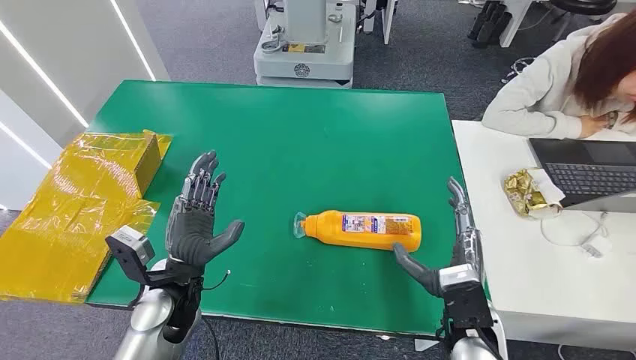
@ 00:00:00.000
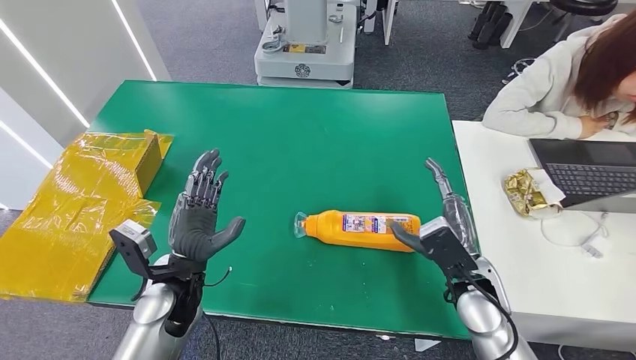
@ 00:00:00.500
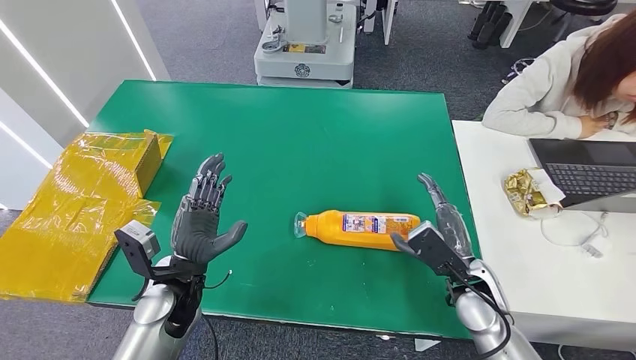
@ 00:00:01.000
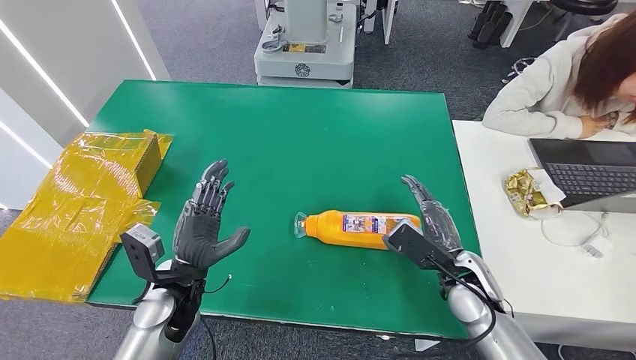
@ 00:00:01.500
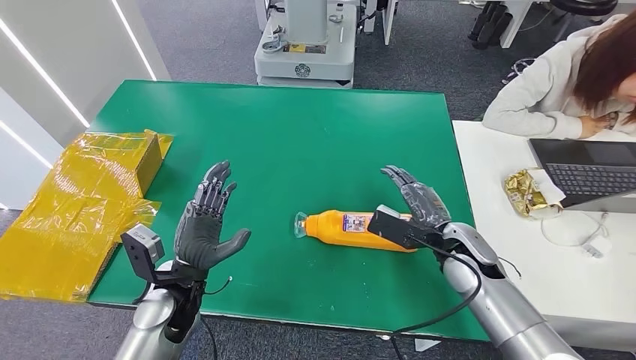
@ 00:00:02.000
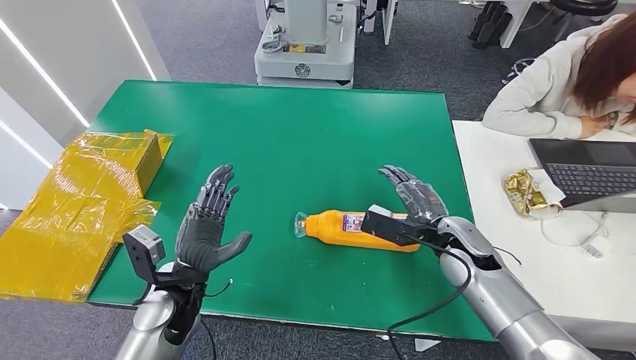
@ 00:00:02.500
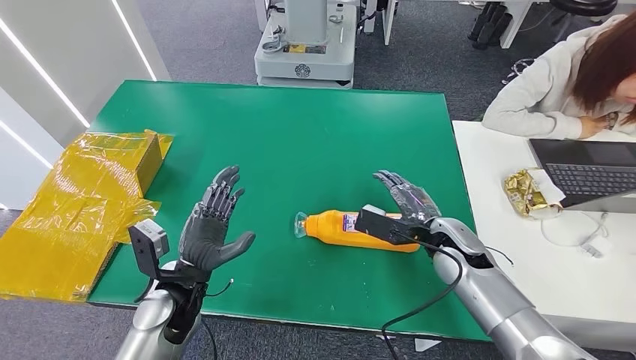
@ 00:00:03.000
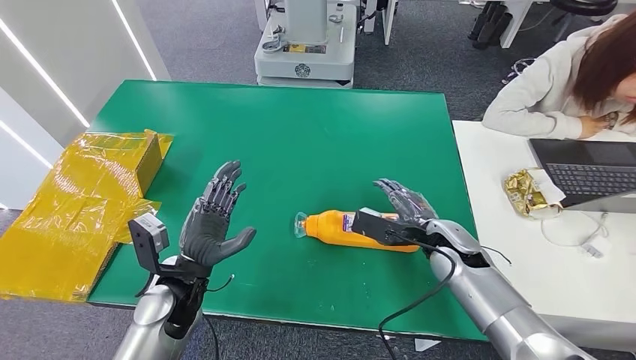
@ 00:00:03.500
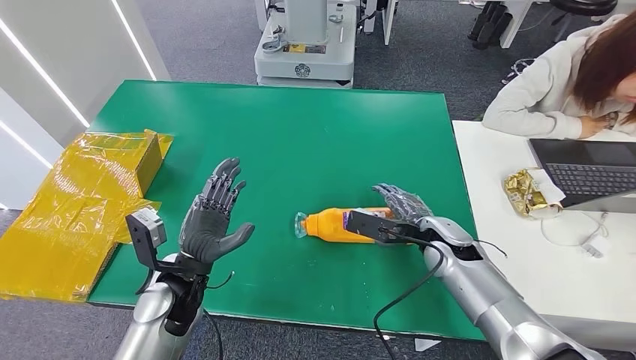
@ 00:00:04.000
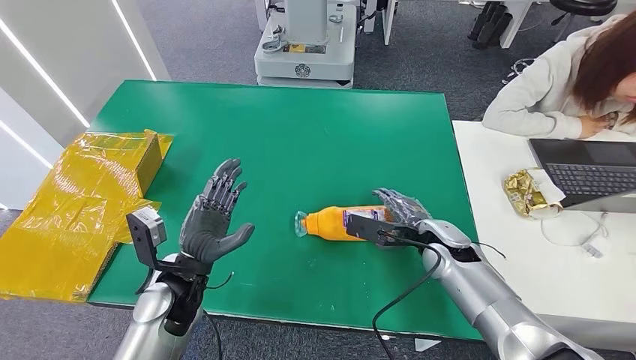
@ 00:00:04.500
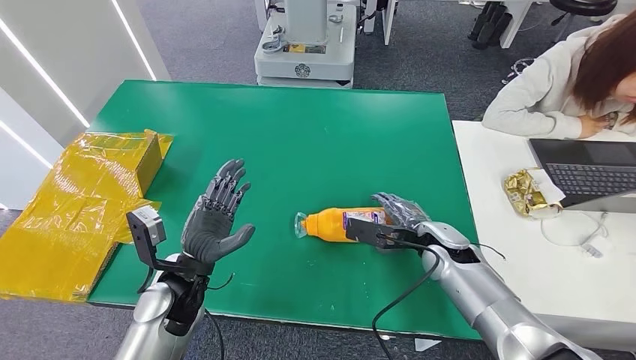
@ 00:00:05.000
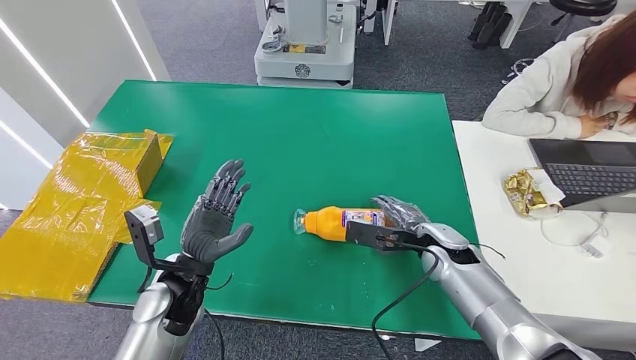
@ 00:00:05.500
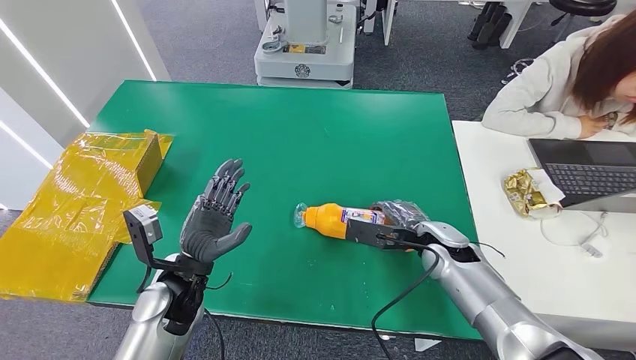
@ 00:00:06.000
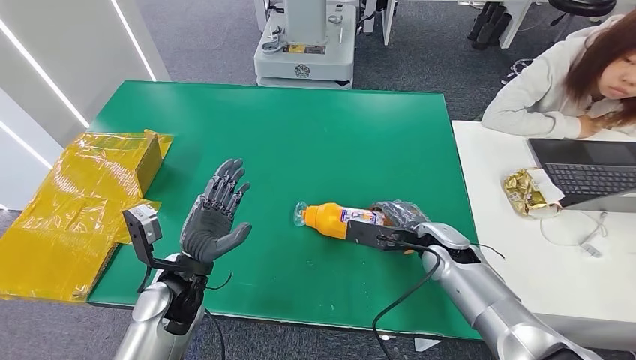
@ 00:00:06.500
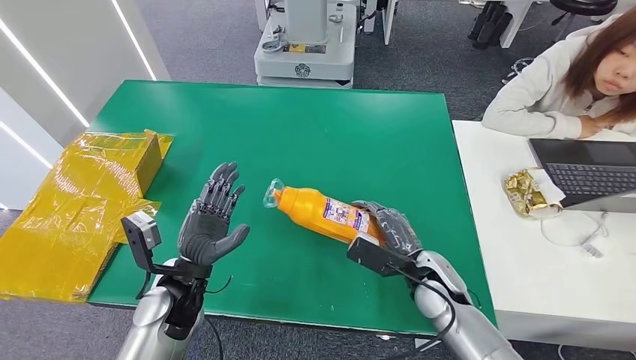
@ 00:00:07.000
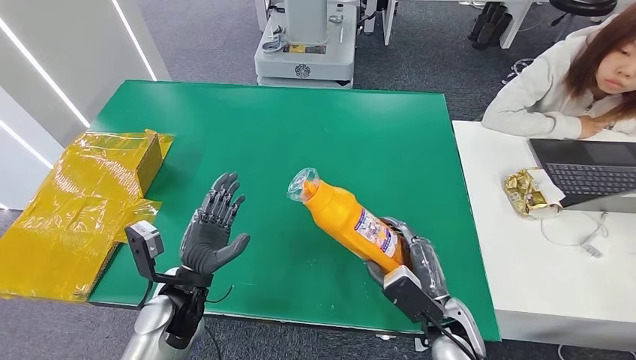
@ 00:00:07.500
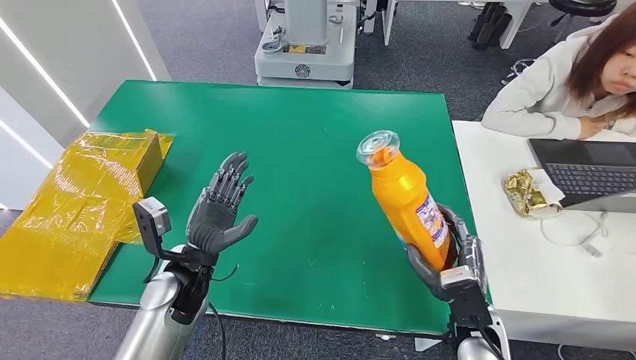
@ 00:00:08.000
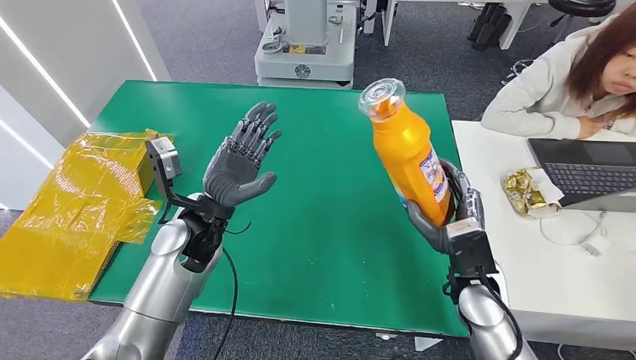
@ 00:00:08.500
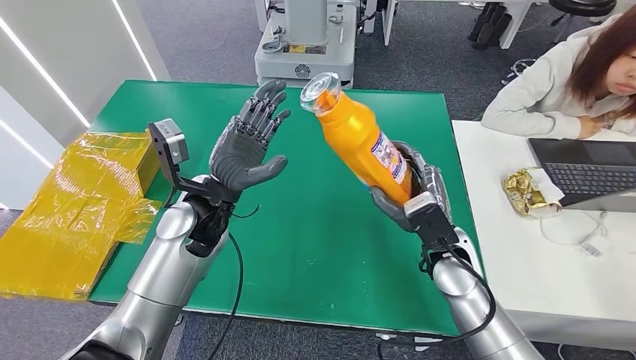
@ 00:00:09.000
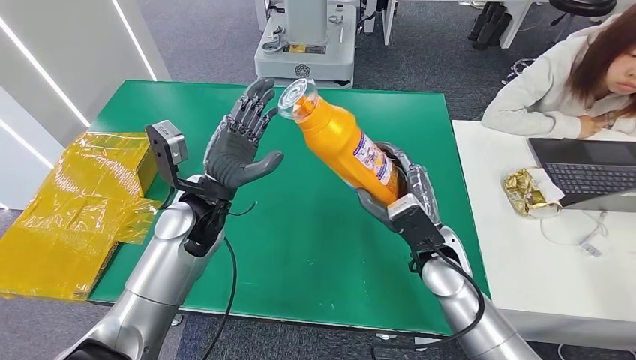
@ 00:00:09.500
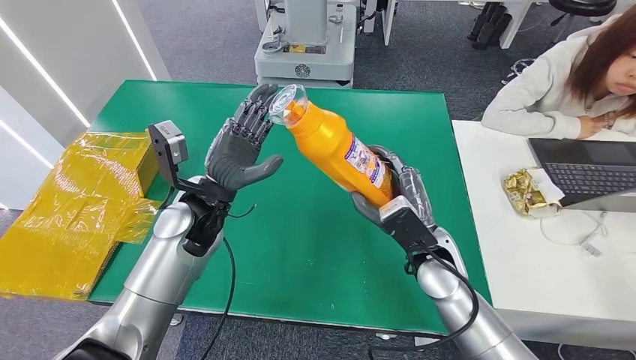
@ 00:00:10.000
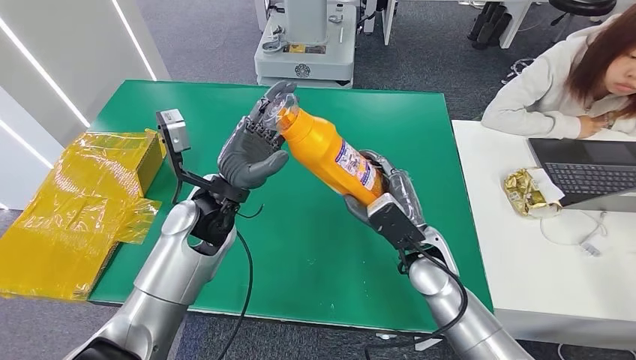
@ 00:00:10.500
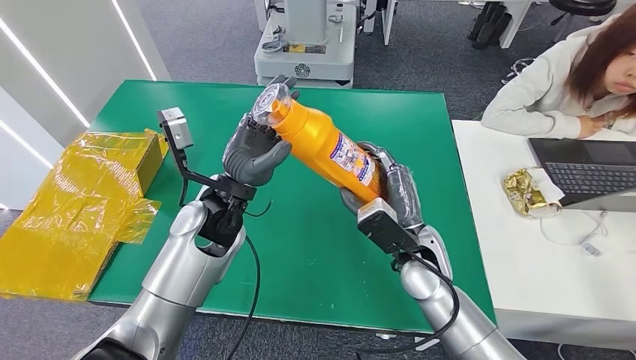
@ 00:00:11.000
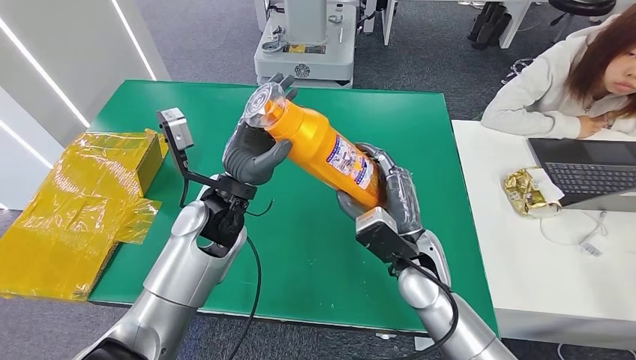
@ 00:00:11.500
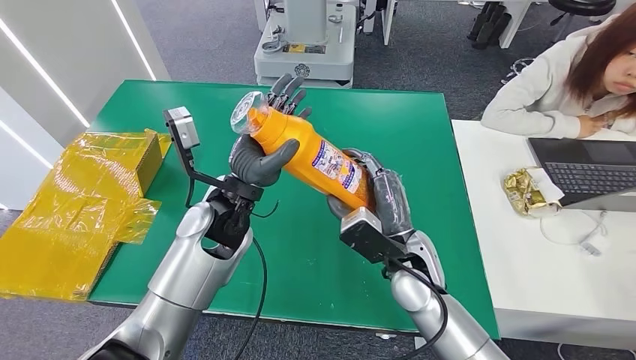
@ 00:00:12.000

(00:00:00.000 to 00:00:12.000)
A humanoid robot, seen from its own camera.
Step, 00:00:00.000 - 00:00:07.000: Pick up the bottle from the table.
00:00:04.000 - 00:00:06.000: There are only small adjustments of the hands.
00:00:06.000 - 00:00:08.000: The right hand heads backward, covering some 15 cm.
00:00:08.000 - 00:00:10.000: The left hand heads upward and forward, covering approximately 10 cm, while the right hand goes approximately 15 cm forward, to the left and upward.
00:00:10.000 - 00:00:12.000: The left hand moves about 5 cm.

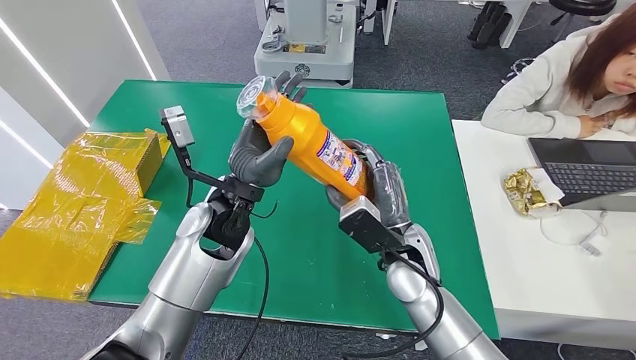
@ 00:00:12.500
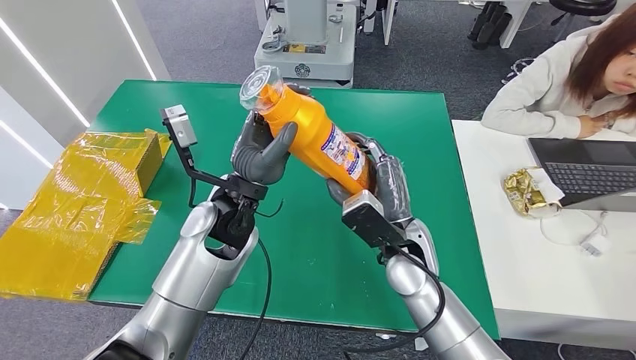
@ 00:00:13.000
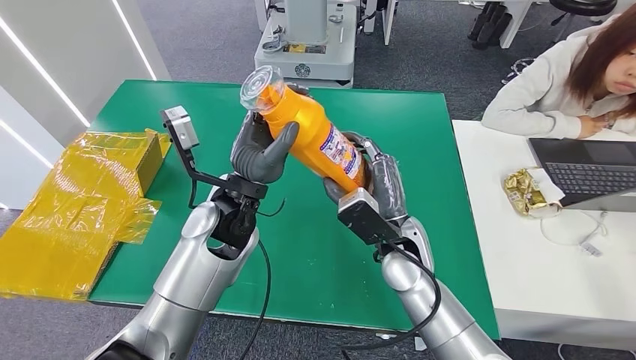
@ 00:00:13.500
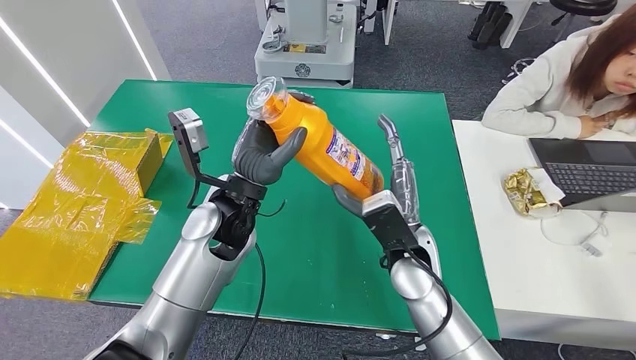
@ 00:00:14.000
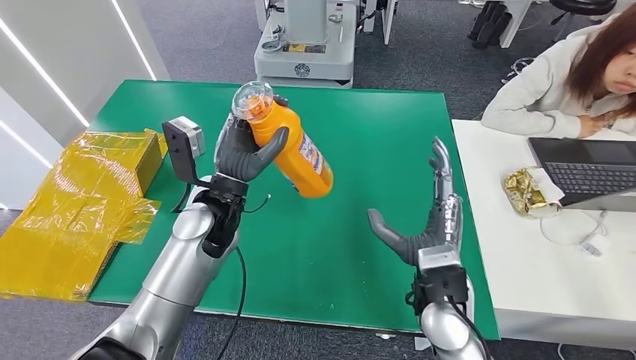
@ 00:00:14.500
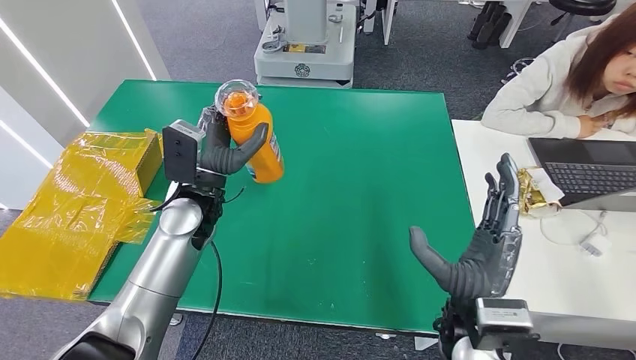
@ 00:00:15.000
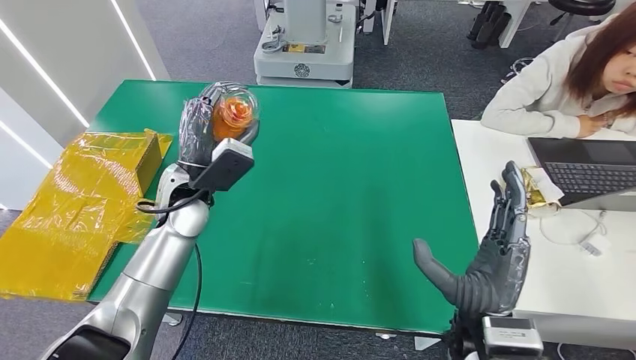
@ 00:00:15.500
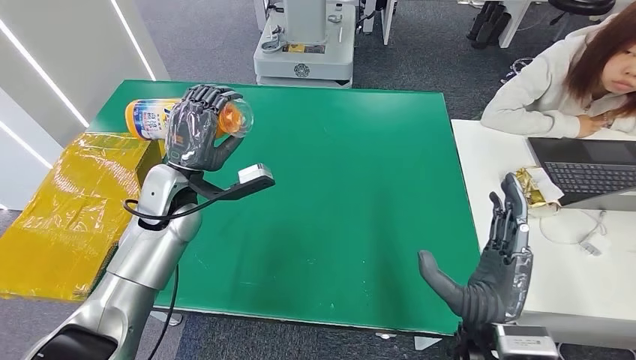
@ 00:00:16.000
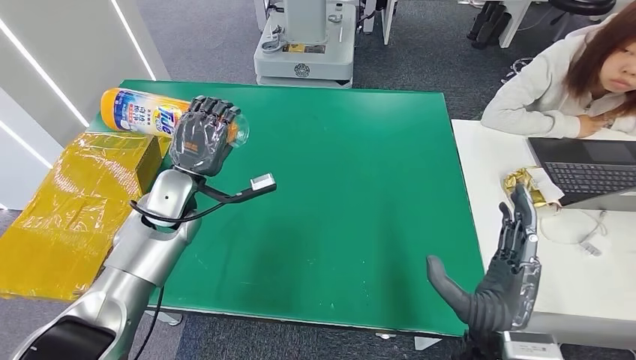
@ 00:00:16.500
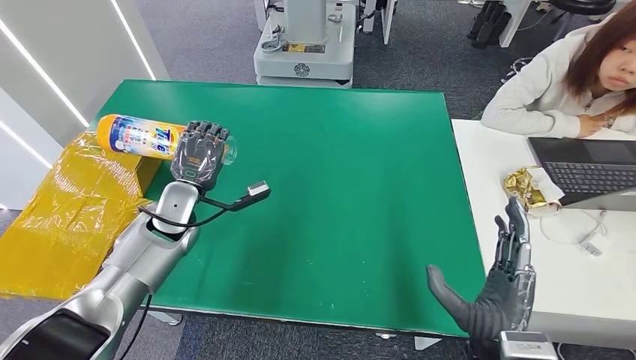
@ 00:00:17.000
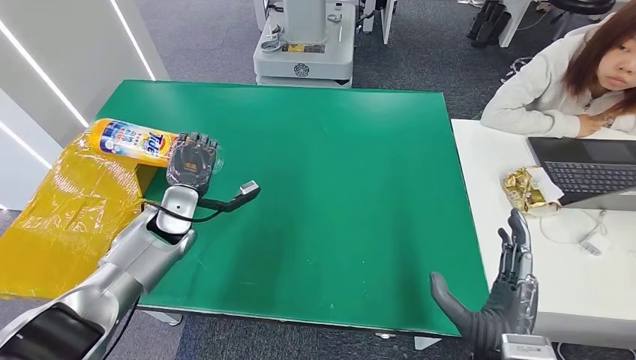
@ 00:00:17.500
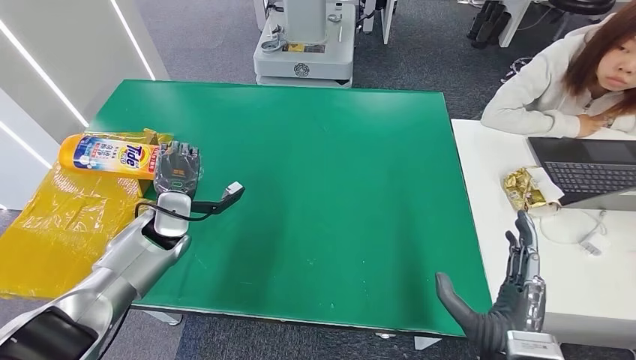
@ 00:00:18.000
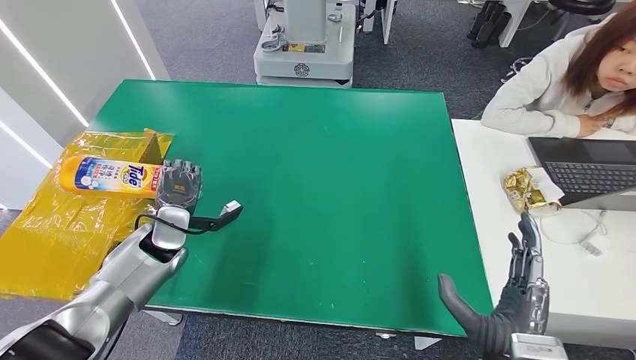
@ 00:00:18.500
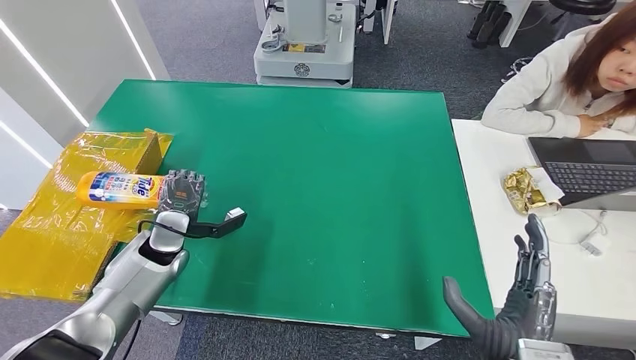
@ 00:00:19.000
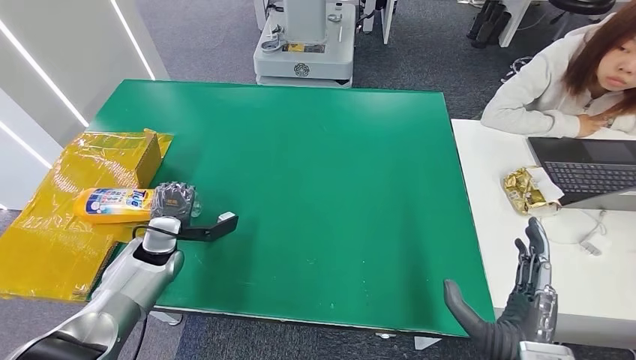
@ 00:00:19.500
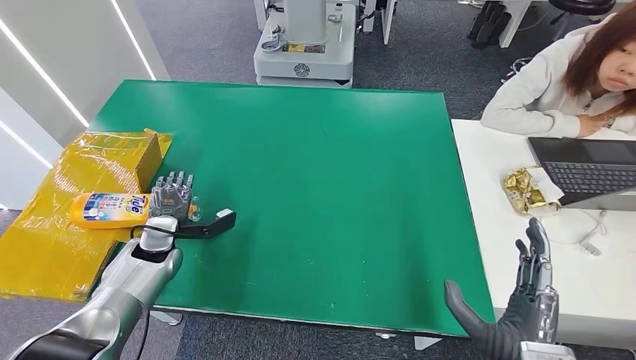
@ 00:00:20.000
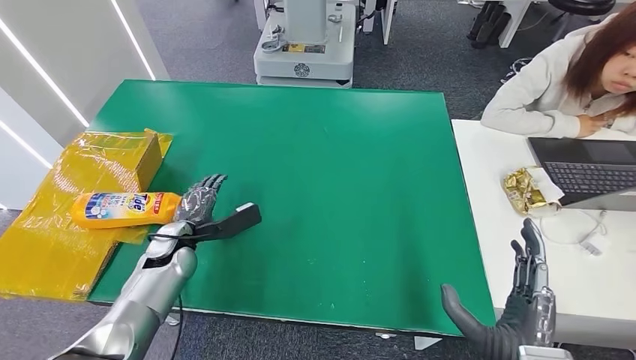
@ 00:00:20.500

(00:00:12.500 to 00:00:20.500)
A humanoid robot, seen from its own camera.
Step, 00:00:12.500 - 00:00:20.500: Turn the bottle to the front side.
00:00:12.500 - 00:00:14.500: The right hand travels backward by approximately 5 cm.
00:00:16.500 - 00:00:18.500: The left hand heads downward and to the left, covering approximately 10 cm.
